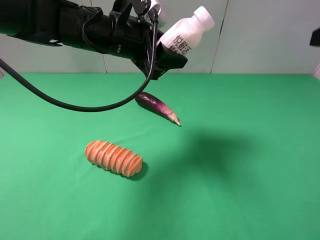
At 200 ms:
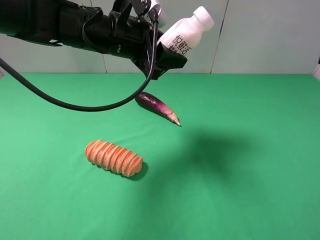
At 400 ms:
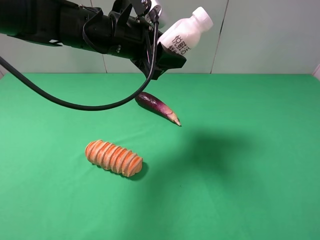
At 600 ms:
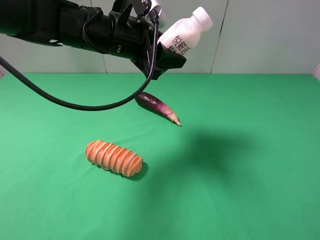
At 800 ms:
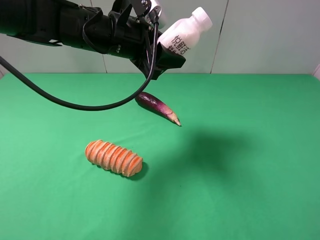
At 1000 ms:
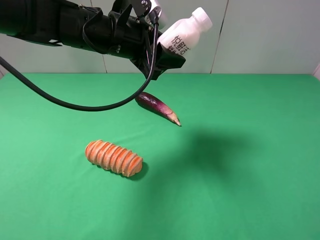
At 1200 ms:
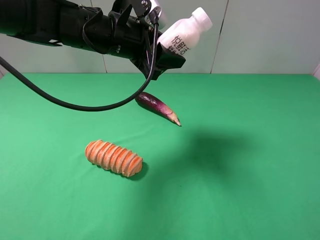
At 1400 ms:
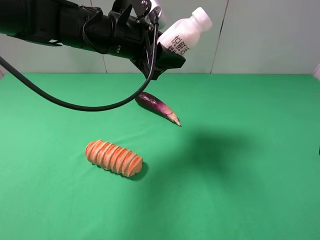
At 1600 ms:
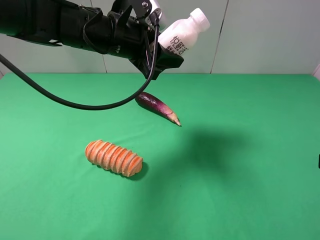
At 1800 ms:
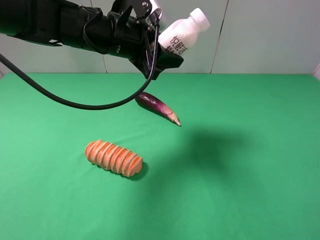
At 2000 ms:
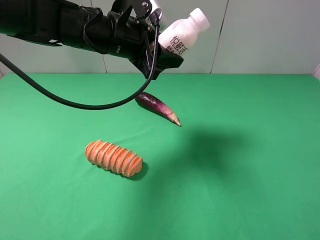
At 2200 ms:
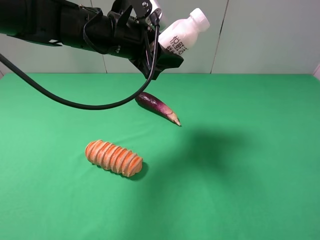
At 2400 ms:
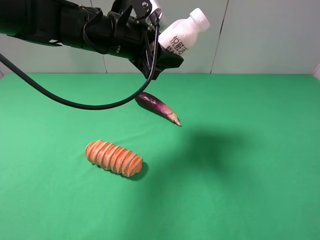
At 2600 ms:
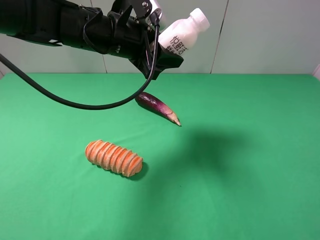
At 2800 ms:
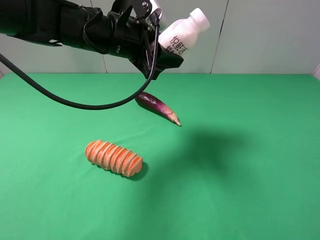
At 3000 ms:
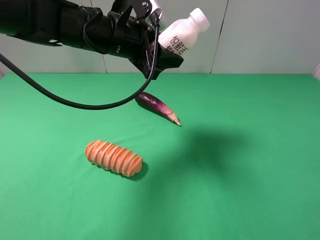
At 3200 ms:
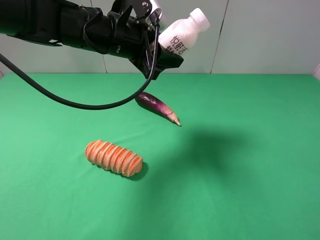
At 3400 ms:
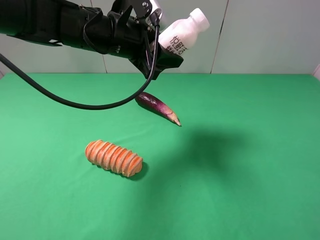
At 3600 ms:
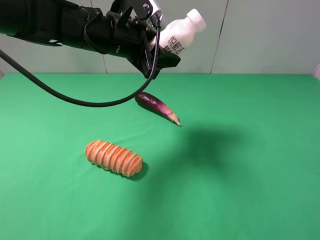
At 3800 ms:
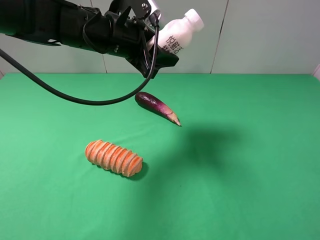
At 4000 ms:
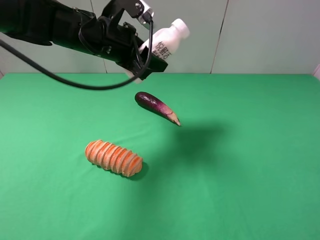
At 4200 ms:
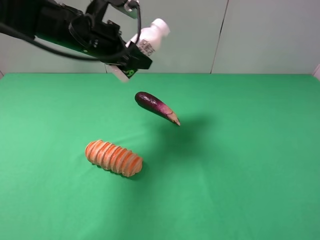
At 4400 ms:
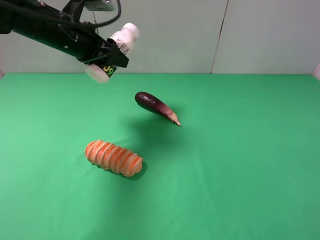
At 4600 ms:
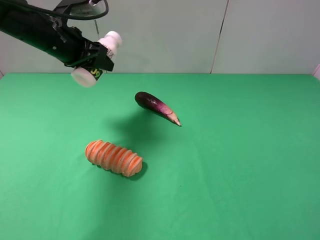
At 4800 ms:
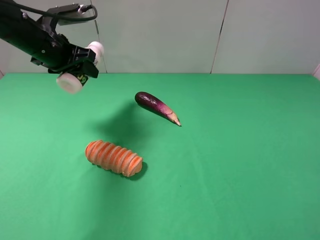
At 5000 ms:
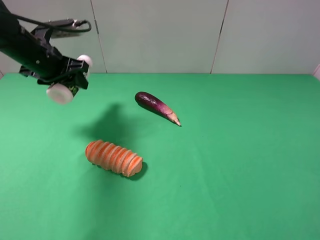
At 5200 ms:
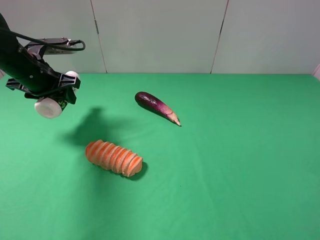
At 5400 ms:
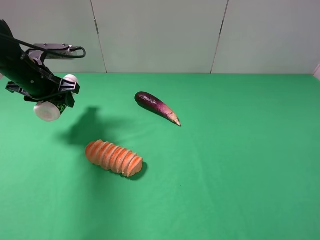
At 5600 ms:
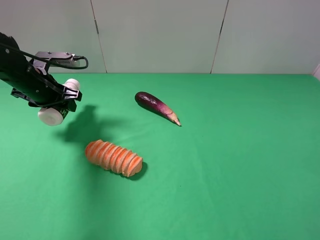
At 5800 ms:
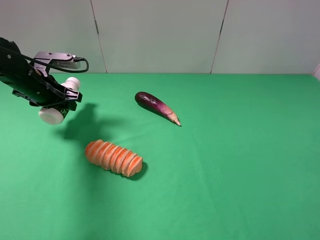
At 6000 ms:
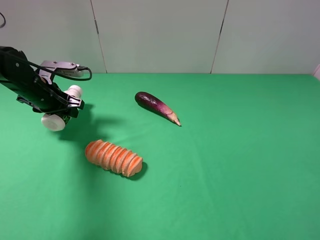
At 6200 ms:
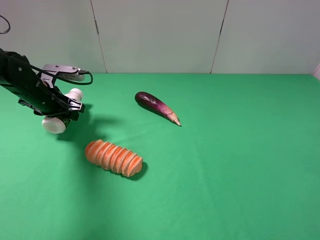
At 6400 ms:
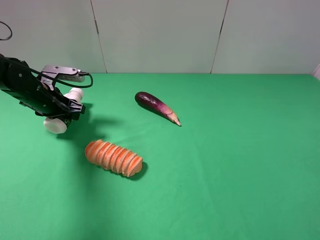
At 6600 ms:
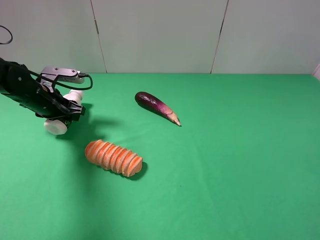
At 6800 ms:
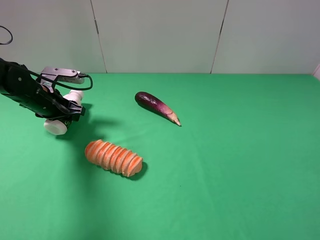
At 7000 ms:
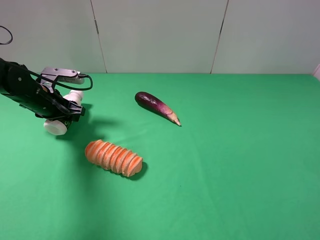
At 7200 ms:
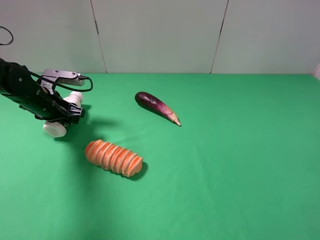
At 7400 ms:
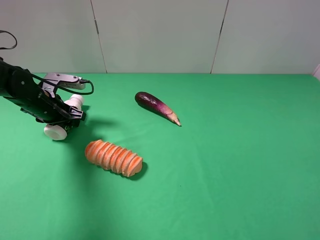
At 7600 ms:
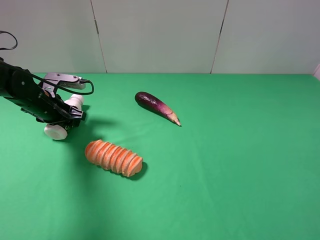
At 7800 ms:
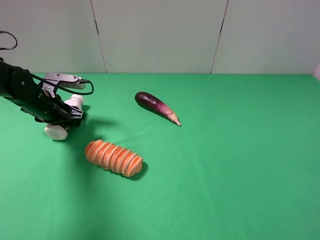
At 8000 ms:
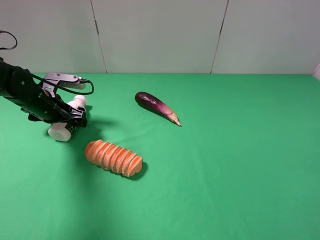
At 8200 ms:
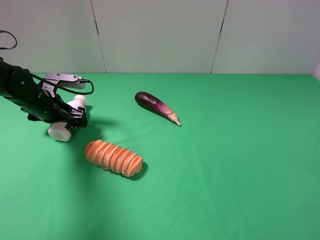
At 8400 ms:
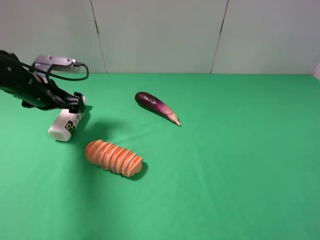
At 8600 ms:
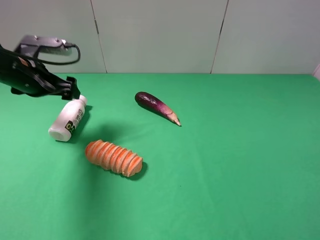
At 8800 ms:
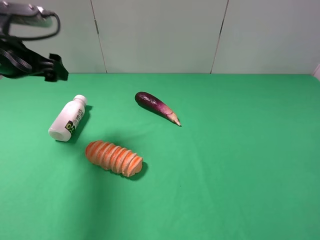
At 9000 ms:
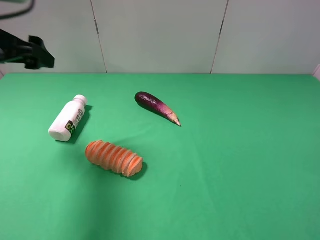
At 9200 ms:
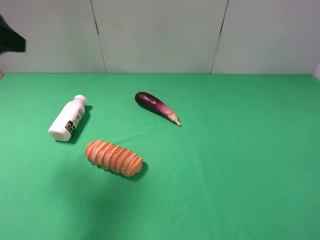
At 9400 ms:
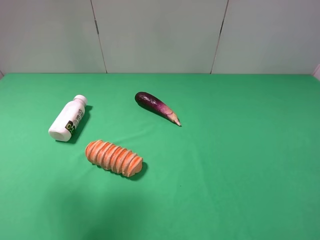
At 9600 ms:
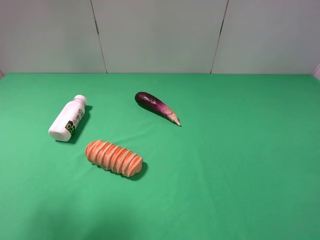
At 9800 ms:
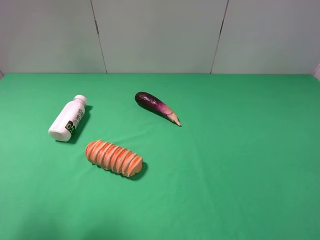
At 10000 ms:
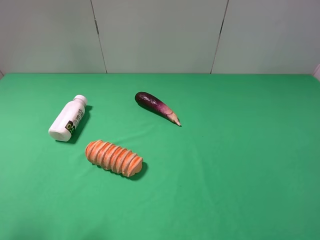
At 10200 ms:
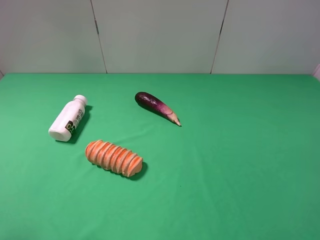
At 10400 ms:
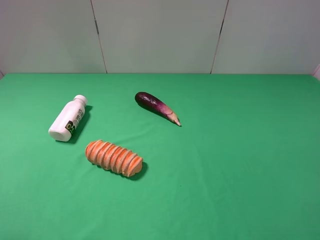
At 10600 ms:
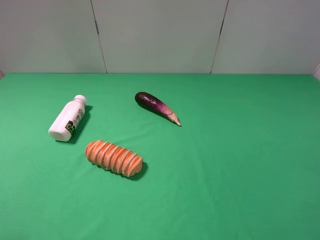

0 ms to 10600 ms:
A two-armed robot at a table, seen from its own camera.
Task of the whole recording: use the right gripper to pick up the item and transfer it from the right gripper to the left gripper.
Step, 0 ms to 8200 ms: The left gripper places milk on the left side of the table.
0 ms to 1600 ms: The right gripper heads backward and downward, covering about 15 cm.
3000 ms to 4600 ms: The left gripper moves to the left, approximately 10 cm.
4600 ms to 6000 ms: The left gripper is displaced downward and to the left by approximately 10 cm.
6000 ms to 7600 ms: The grippers move only a little.
7600 ms to 9000 ms: The left gripper travels upward and backward by some 20 cm, and opens up.
9000 ms to 10600 ms: The left gripper heads backward, covering some 25 cm.

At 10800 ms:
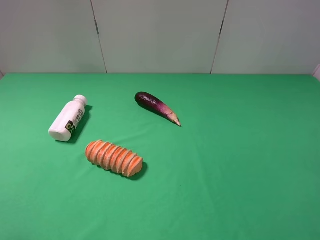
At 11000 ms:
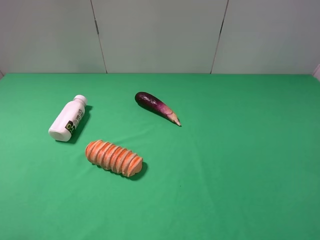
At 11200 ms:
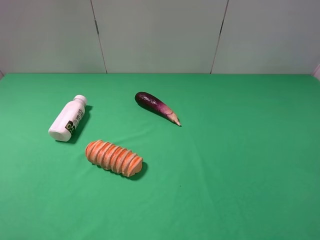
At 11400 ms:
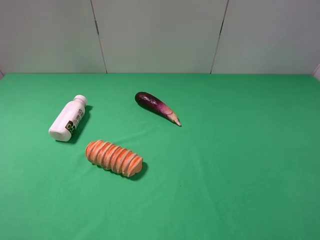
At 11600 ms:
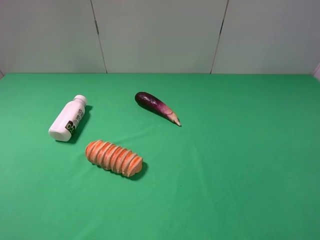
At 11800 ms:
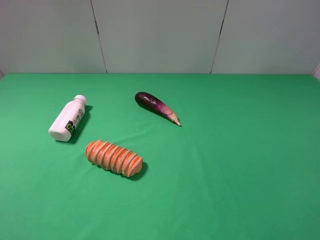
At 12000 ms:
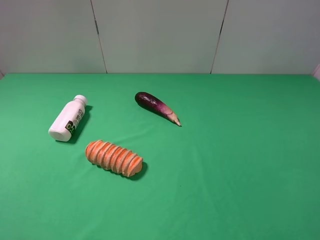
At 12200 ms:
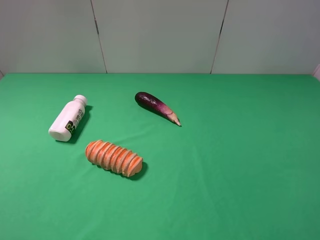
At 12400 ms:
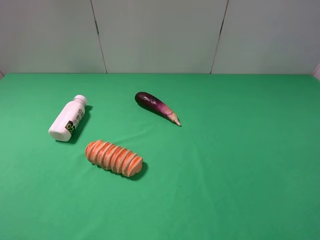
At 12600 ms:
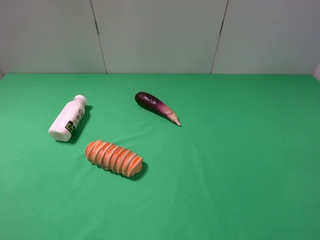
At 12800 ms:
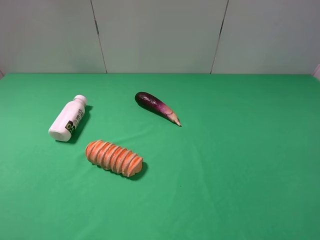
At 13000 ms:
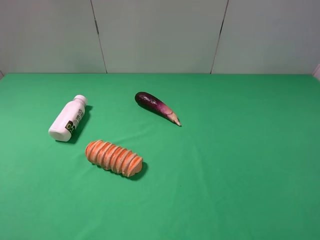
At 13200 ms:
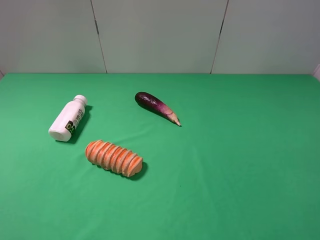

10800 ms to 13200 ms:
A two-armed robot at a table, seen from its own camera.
Task of the whole recording: use the right gripper to pick up the item and transfer it from the right gripper to the left gripper.
12000 ms to 13200 ms: Both grippers stay put.
